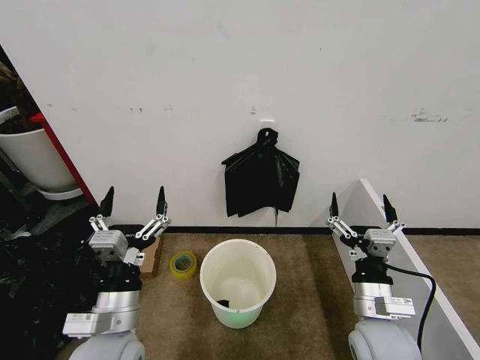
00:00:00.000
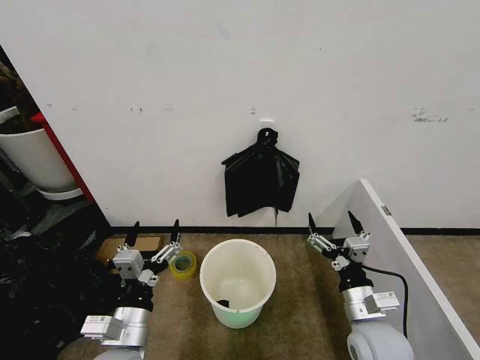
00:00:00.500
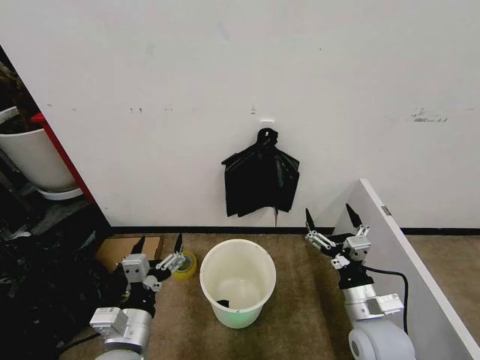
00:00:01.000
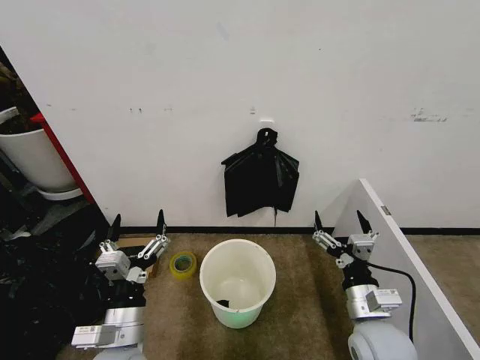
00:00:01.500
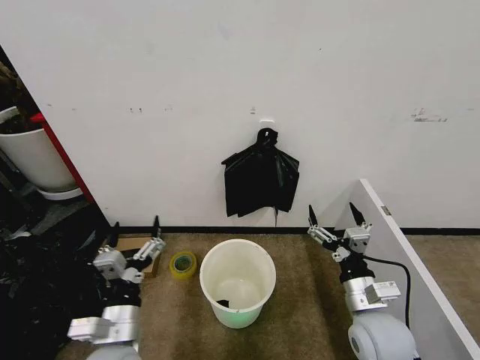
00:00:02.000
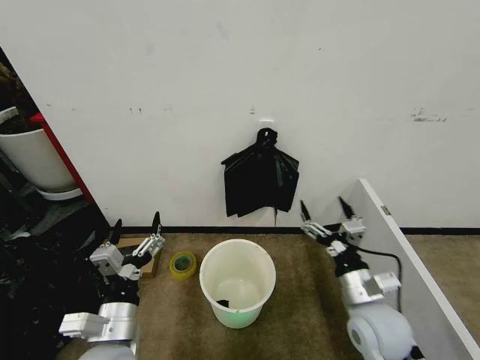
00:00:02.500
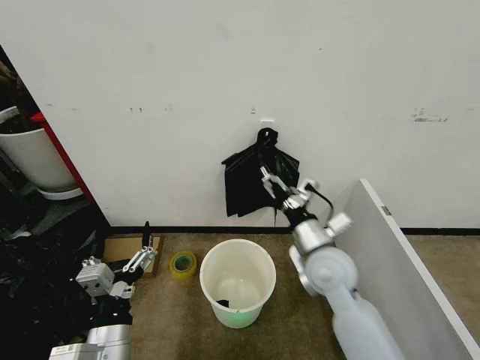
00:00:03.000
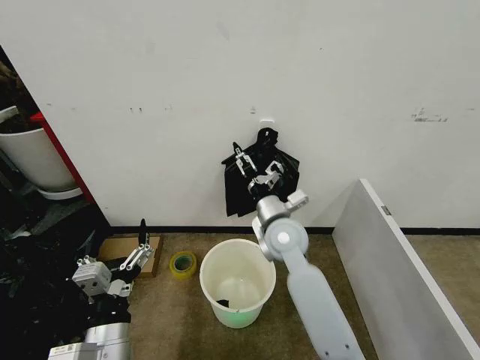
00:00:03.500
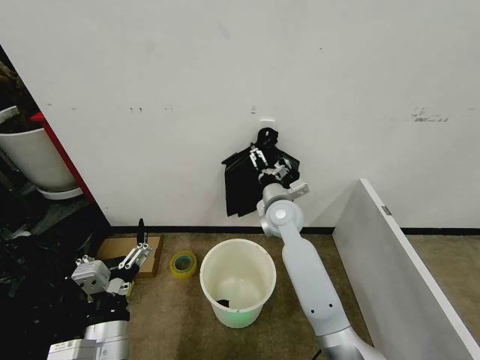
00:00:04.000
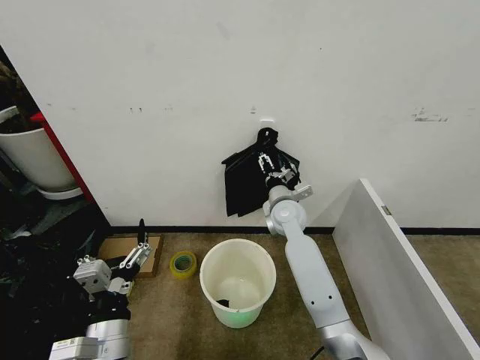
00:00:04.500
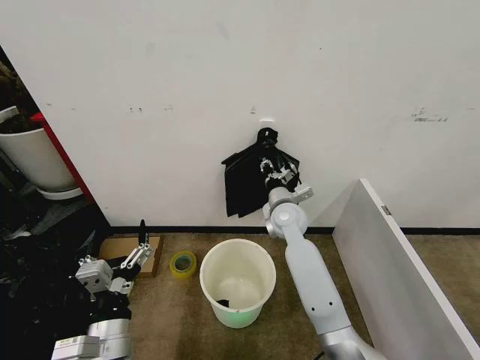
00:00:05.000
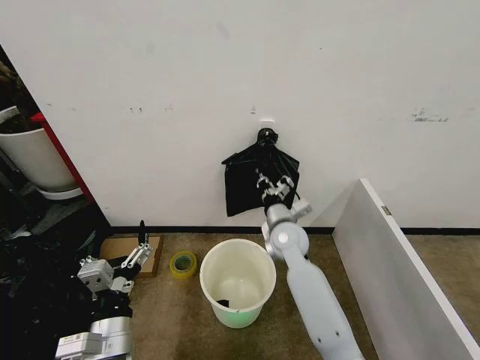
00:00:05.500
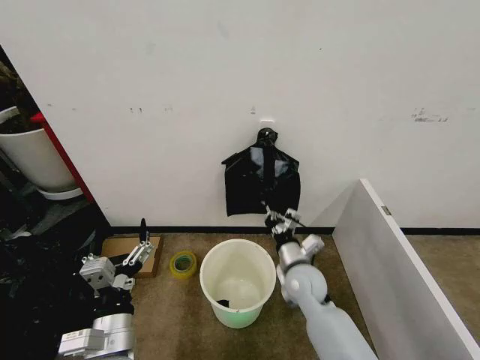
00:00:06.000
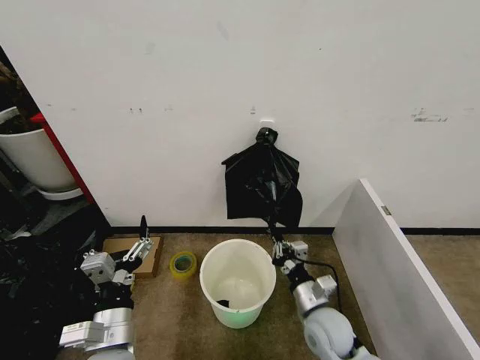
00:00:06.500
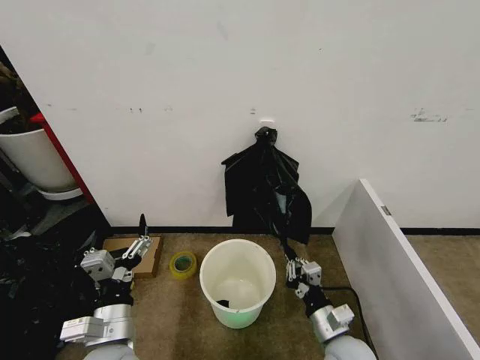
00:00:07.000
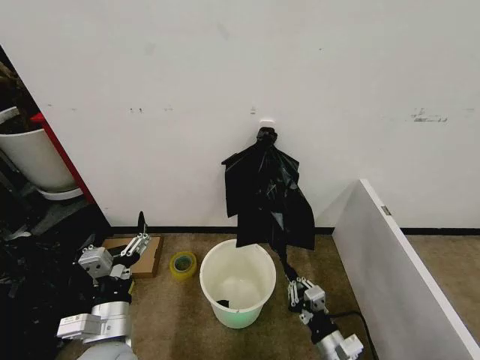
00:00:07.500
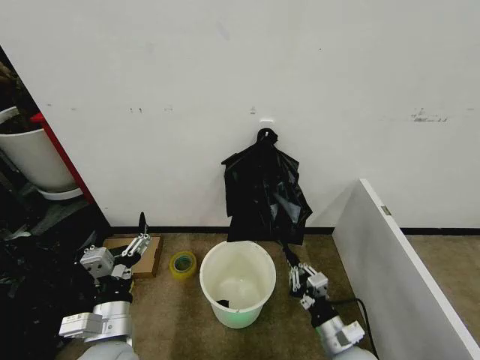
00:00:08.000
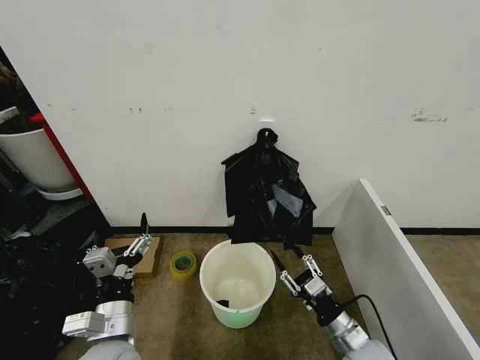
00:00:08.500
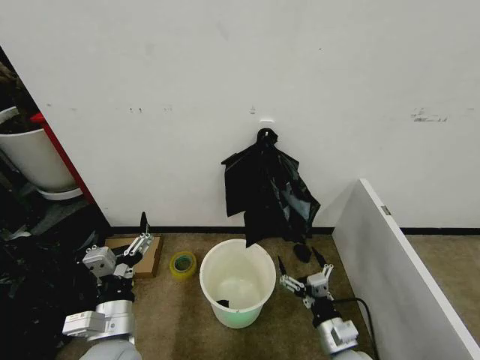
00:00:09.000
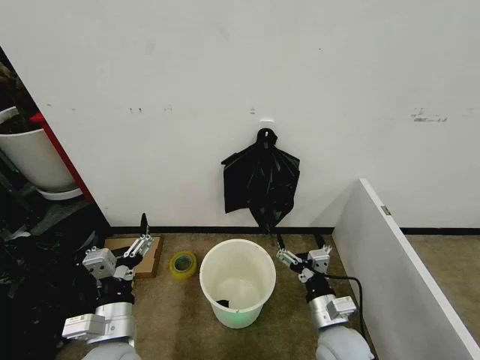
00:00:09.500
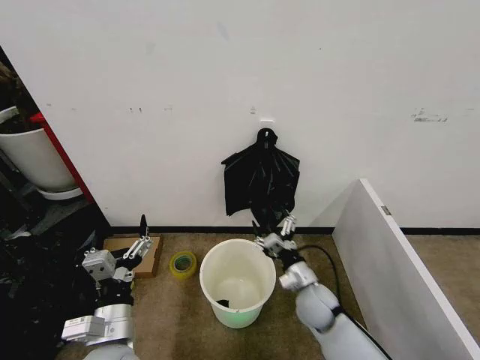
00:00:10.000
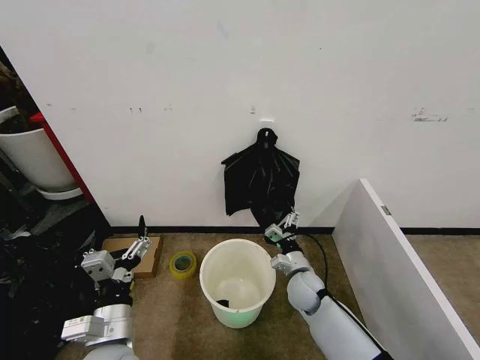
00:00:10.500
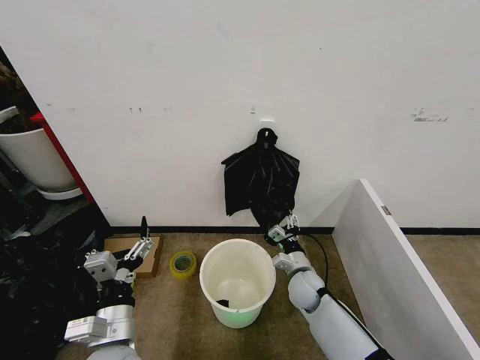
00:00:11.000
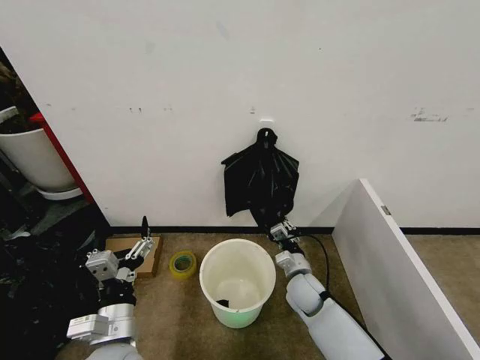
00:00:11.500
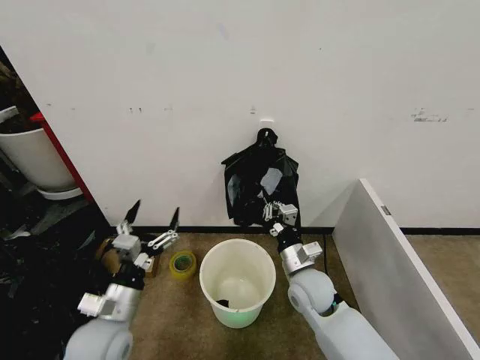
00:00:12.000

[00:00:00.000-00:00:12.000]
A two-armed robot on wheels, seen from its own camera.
Task of the whole recording: Place the garbage bag over the trash bin.
00:00:02.000 to 00:00:04.000: The right gripper goes about 30 cm forward and to the left.
00:00:04.000 to 00:00:06.000: The right gripper moves backward and downward, approximately 15 cm, and closes its fingers.
00:00:06.000 to 00:00:08.000: The right gripper is displaced backward and to the right by roughly 20 cm.
00:00:08.000 to 00:00:10.000: The right gripper travels forward by approximately 15 cm, and opens.
00:00:10.000 to 00:00:12.000: The right gripper shifts approximately 5 cm upward, and closes its fingers; the left gripper moves forward, approximately 5 cm.

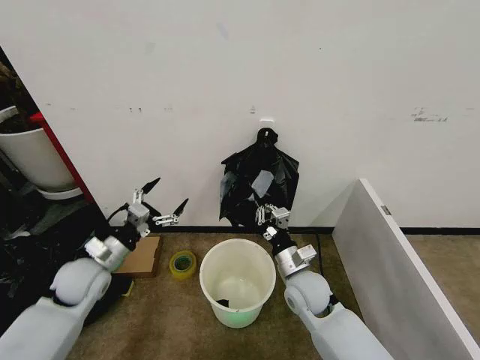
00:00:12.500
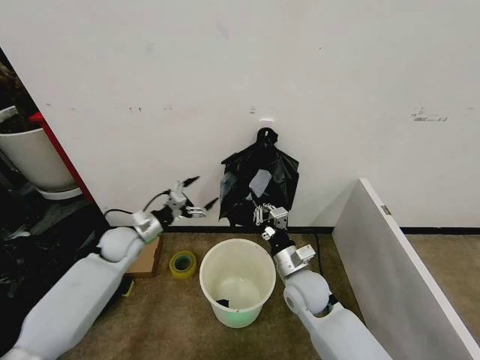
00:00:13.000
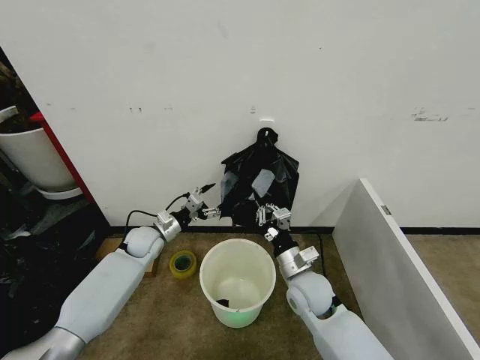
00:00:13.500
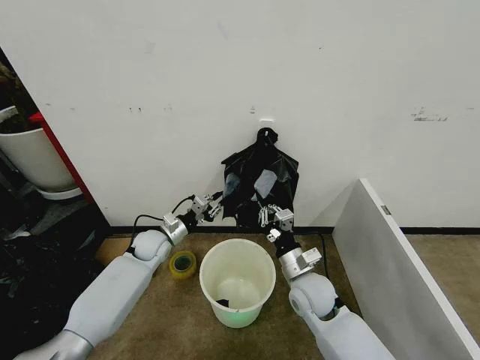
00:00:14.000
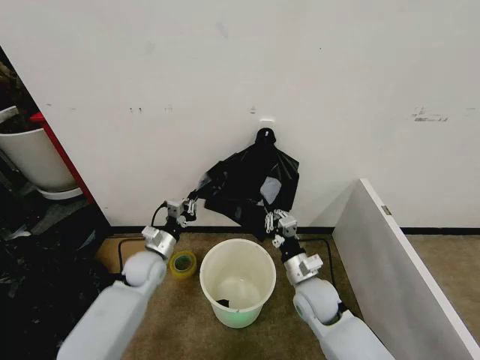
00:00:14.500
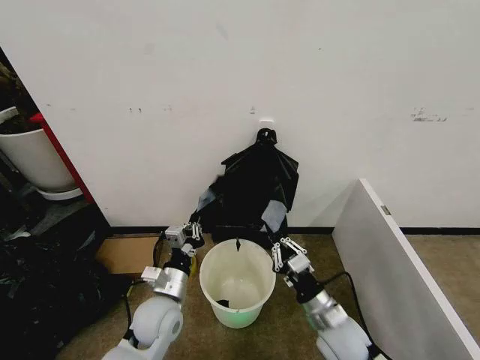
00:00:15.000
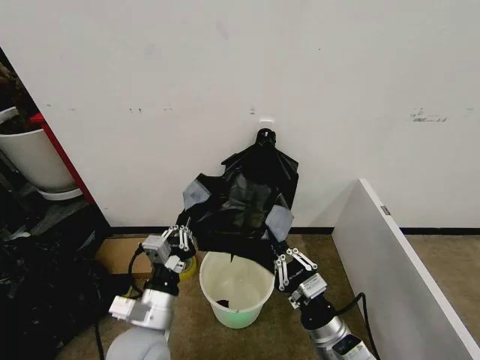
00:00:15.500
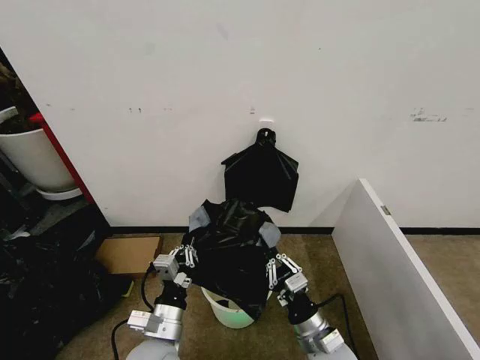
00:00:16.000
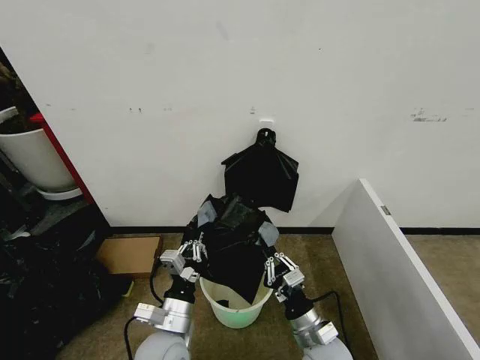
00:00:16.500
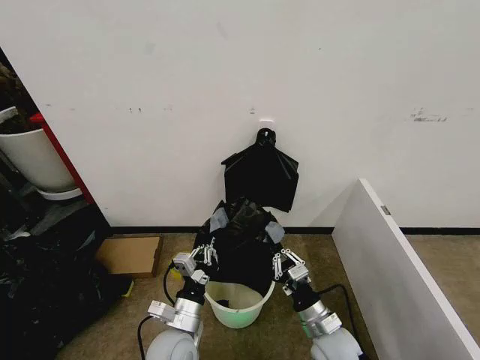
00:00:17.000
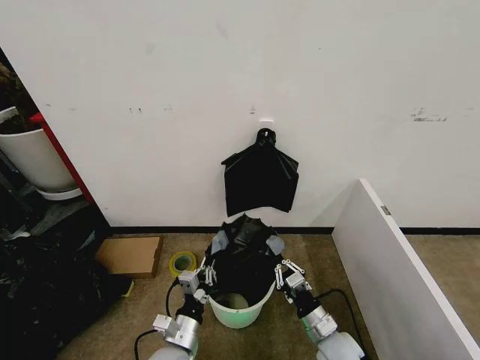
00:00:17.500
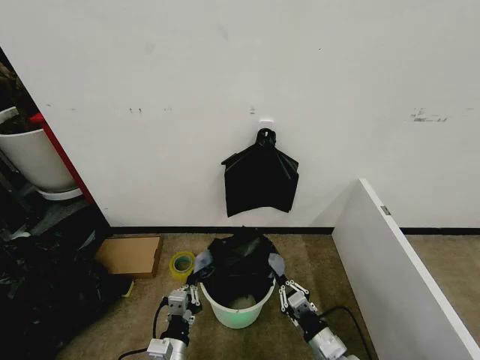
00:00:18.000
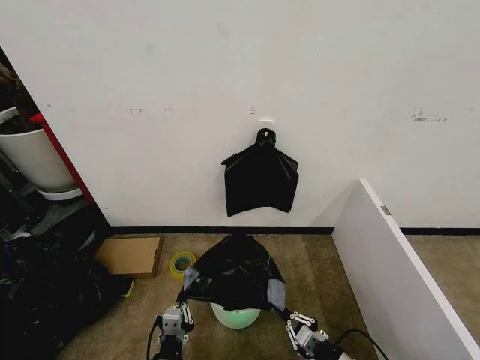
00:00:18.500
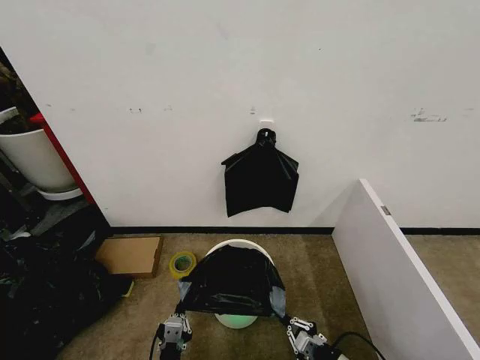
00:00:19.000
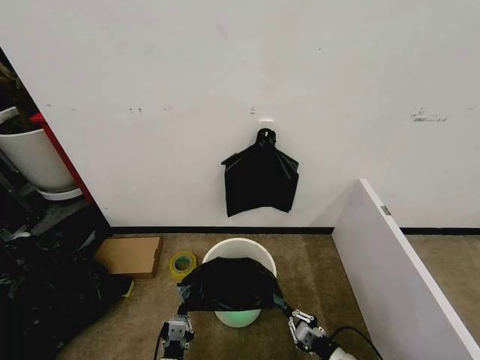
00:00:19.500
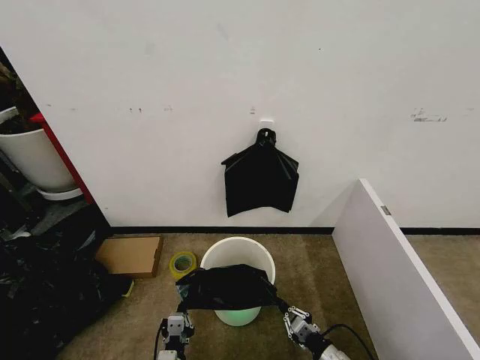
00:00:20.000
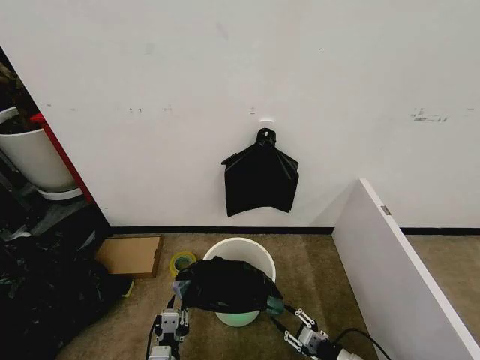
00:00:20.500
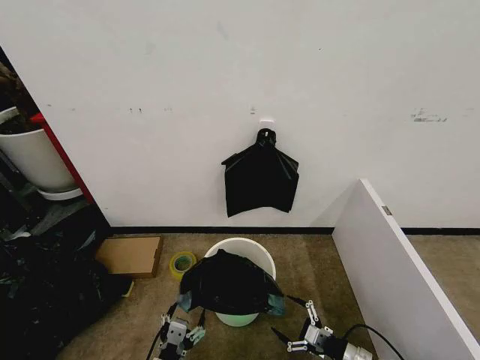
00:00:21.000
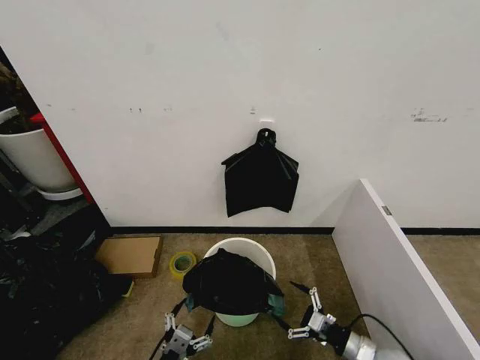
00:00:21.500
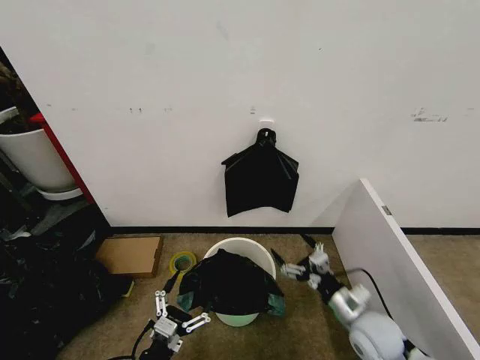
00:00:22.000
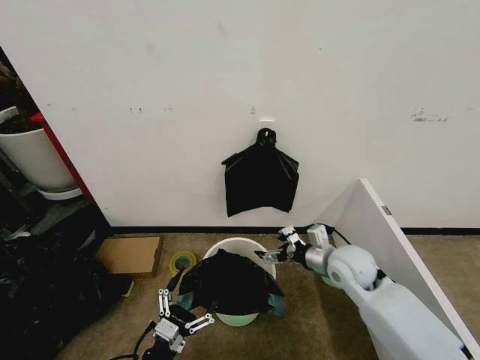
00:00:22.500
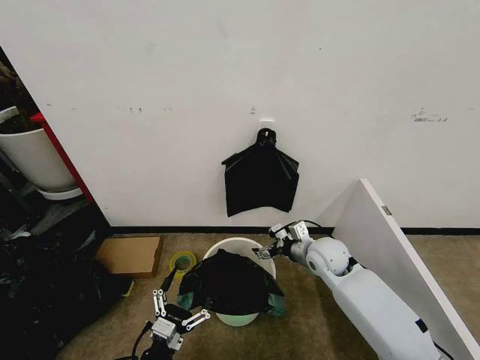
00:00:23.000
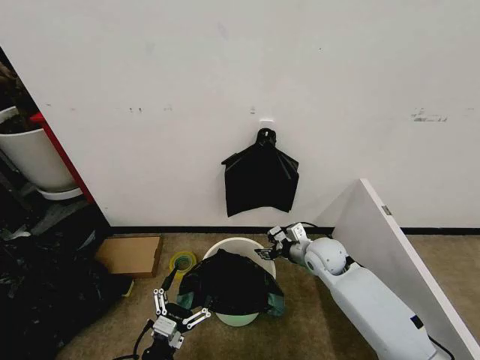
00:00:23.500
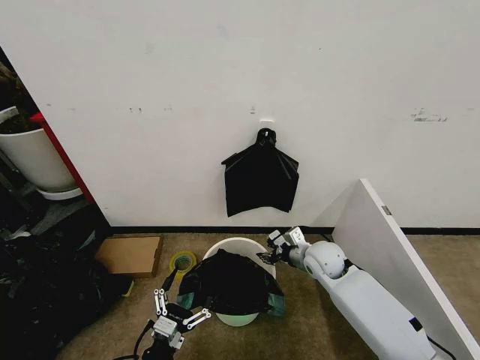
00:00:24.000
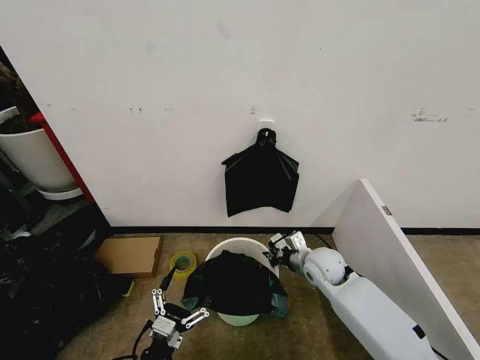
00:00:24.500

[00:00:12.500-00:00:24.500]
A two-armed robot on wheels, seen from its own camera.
Task of the whole recording: Place the garbage bag over the trash bin.
00:00:12.500 to 00:00:14.500: The left gripper travels to the right and downward by roughly 15 cm, and closes up.
00:00:14.500 to 00:00:16.500: The left gripper goes approximately 20 cm backward and to the right, while the right gripper shifts about 10 cm backward.
00:00:16.500 to 00:00:18.500: The right gripper goes about 15 cm to the right, backward and downward. Meanwhile the left gripper is displaced backward and downward by approximately 10 cm.
00:00:18.500 to 00:00:20.500: The left gripper opens. Meanwhile the right gripper moves roughly 5 cm, and opens.
00:00:20.500 to 00:00:22.500: The right gripper is displaced upward and forward by about 30 cm, and opens. The left gripper opens its fingers.
00:00:22.500 to 00:00:24.500: The right gripper shifts roughly 5 cm downward, and closes its fingers.

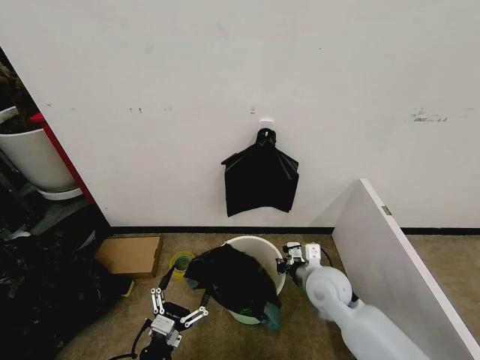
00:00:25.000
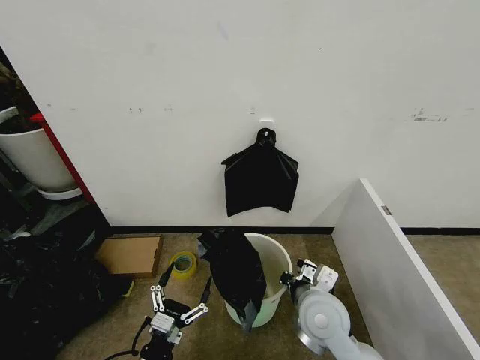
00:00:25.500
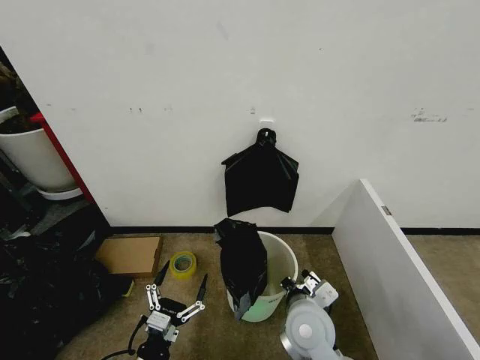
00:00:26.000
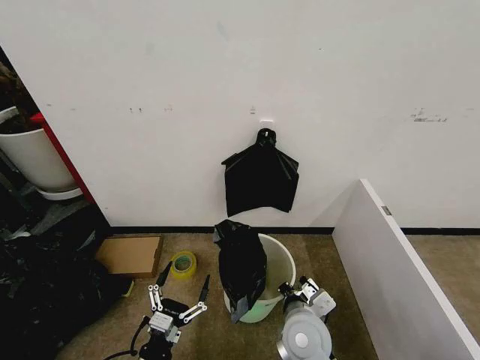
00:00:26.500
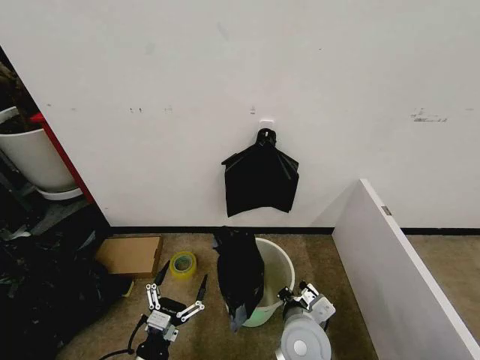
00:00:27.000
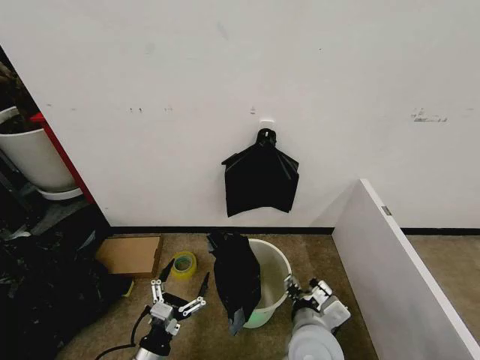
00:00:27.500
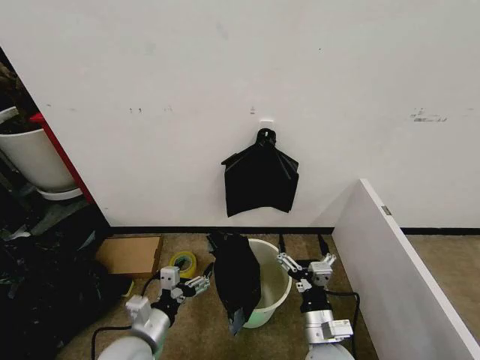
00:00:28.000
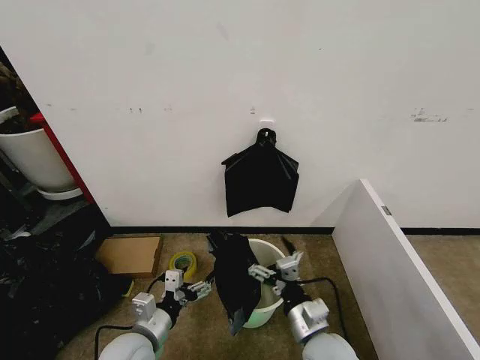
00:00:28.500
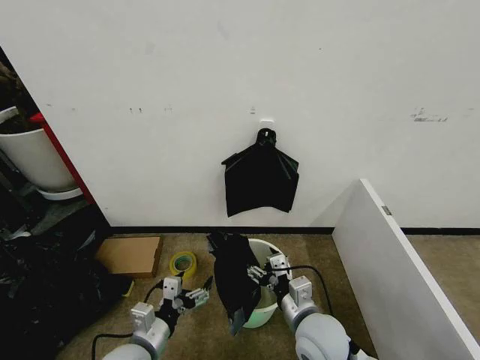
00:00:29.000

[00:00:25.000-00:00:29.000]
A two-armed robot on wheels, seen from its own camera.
Task of the whole recording: Place the garbage bag over the trash bin.
00:00:25.000 to 00:00:27.000: The right gripper moves backward and to the left, about 15 cm.
00:00:27.000 to 00:00:29.000: The left gripper heads upward and forward, covering some 10 cm; the right gripper opens its fingers.
